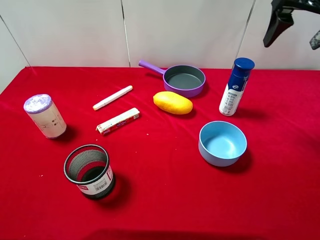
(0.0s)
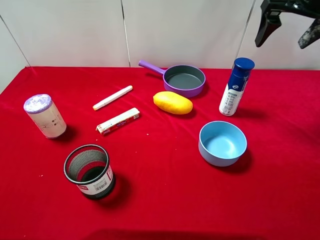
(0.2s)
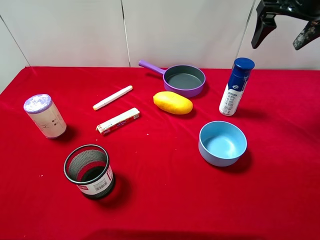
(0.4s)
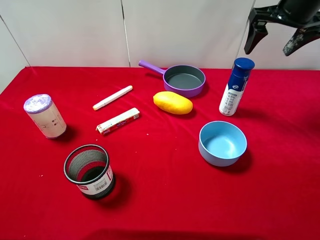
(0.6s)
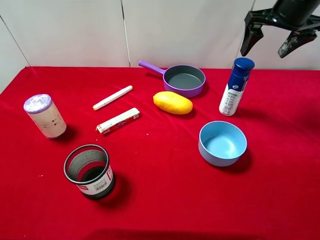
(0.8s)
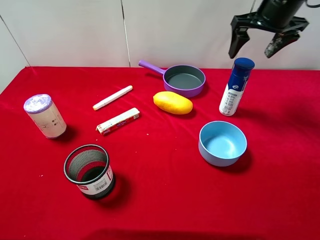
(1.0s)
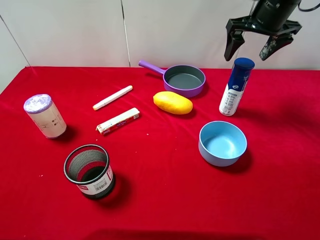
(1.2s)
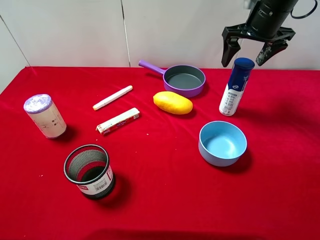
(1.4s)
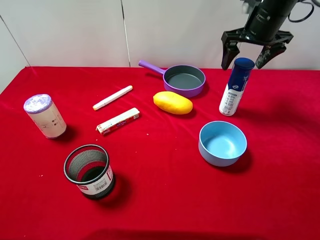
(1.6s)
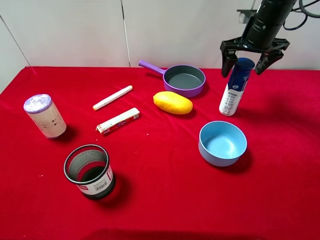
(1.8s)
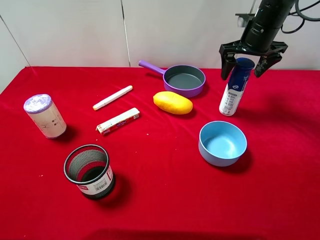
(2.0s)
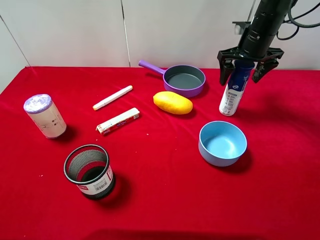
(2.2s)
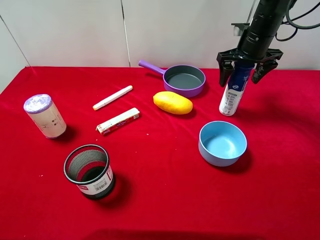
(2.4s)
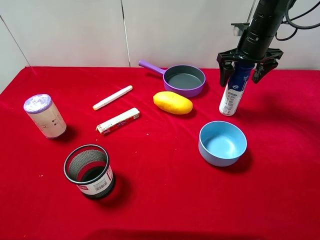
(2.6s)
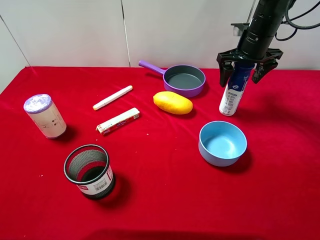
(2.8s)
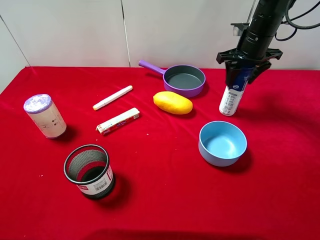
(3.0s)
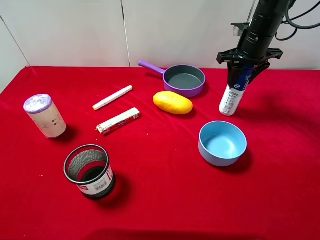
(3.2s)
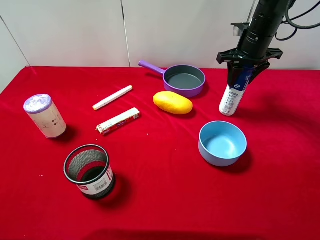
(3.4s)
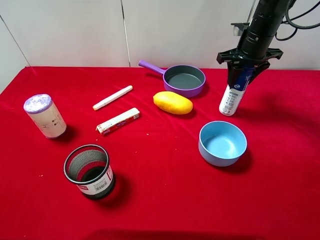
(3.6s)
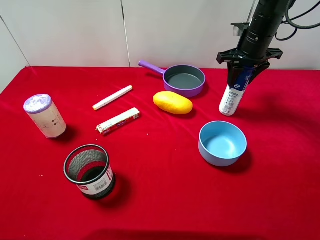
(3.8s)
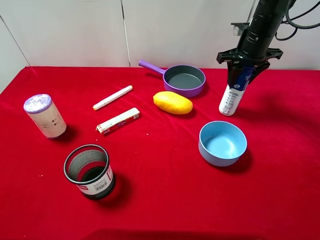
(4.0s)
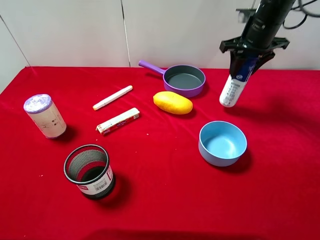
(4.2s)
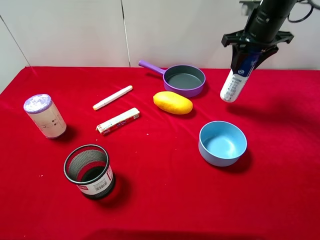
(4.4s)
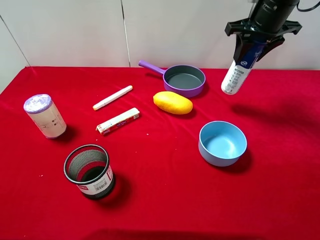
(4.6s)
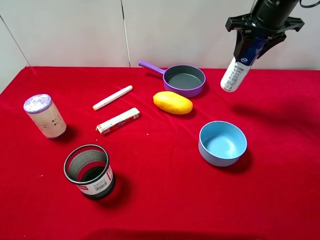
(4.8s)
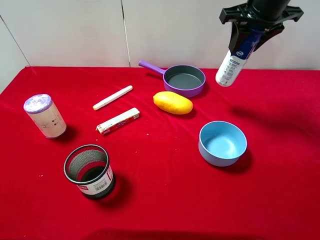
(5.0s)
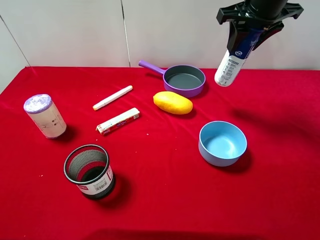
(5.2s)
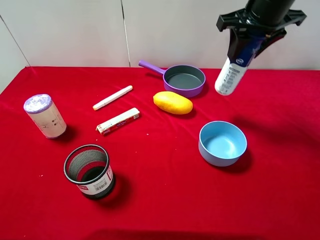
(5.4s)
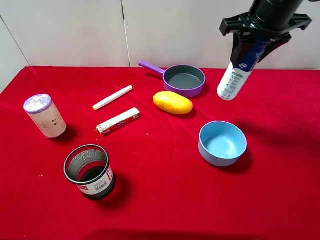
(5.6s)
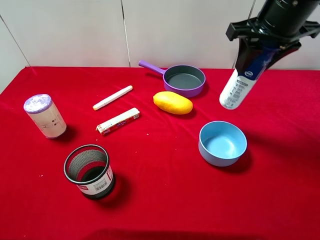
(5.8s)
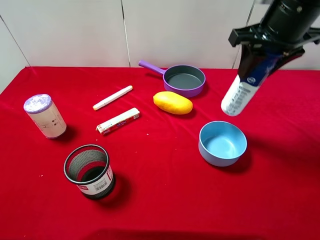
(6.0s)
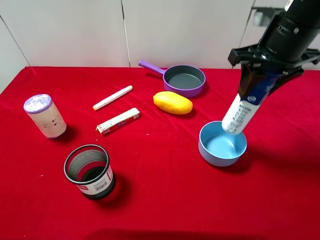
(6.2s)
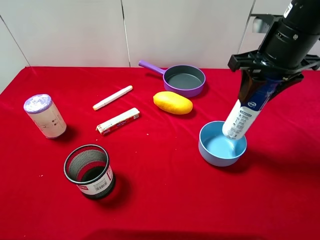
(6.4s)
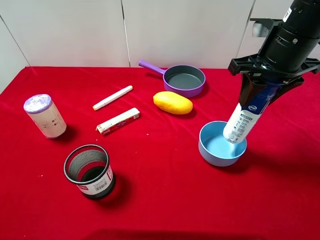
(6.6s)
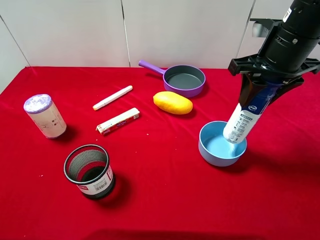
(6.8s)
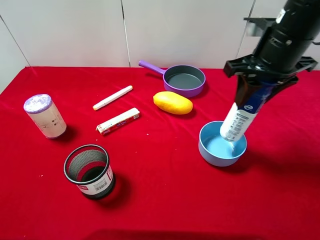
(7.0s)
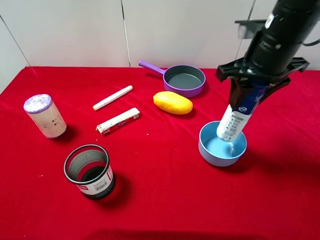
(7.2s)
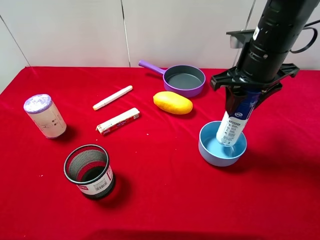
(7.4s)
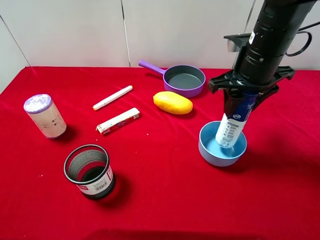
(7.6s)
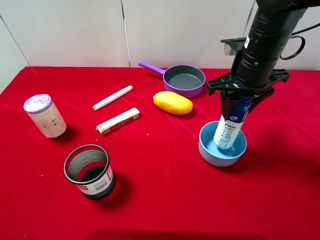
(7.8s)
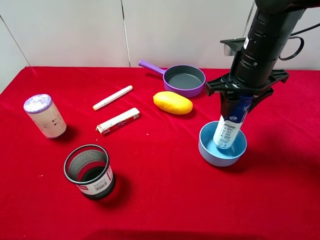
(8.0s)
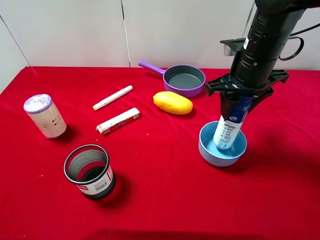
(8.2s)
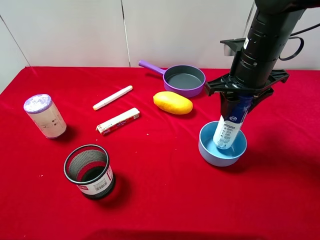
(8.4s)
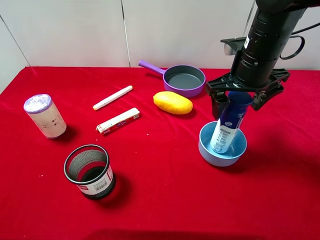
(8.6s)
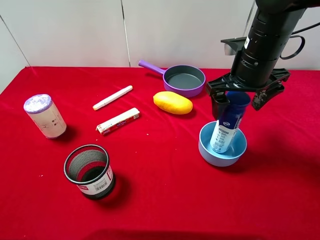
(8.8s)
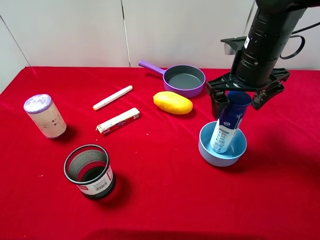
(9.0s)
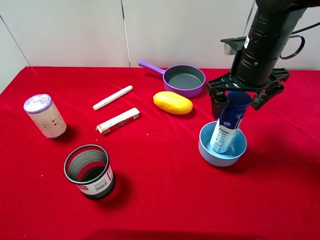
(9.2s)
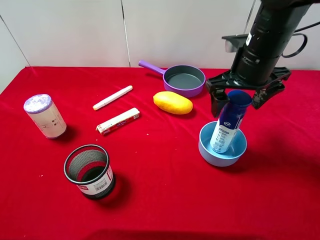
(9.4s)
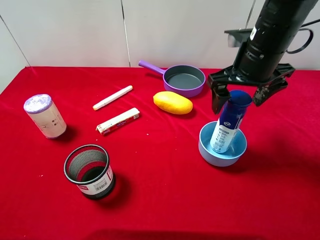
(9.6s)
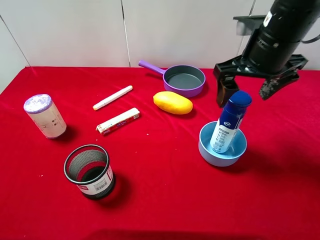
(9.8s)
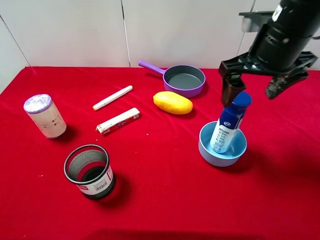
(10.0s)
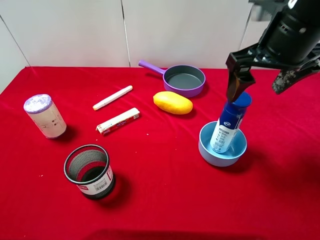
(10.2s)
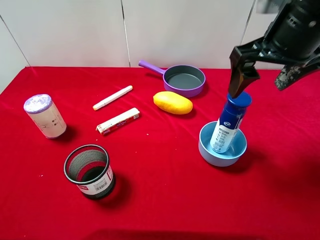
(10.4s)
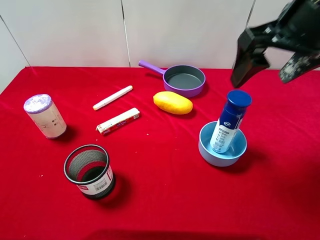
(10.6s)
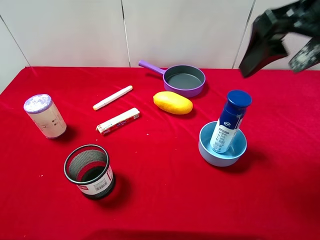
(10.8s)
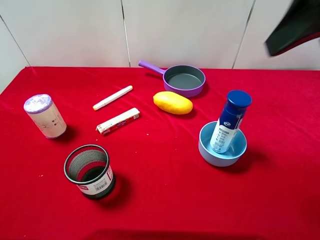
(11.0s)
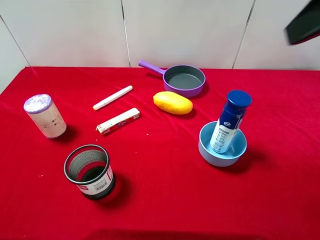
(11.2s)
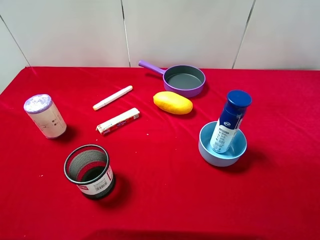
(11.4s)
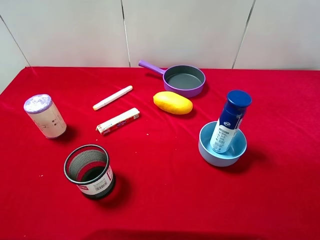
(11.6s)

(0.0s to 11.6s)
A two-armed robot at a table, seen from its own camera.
Task of the whole recording: pick up an item with a gripper and place it in a random container on the desktop.
0.0s - 1.4s: The right gripper shifts about 10 cm downward and forward.
1.4s - 2.8s: The right gripper is displaced downward by some 5 cm.
2.8s - 4.4s: The right gripper heads upward, covering approximately 5 cm, and closes up.
4.4s - 5.8s: The right gripper shifts about 10 cm backward and upward.
5.8s - 7.2s: The right gripper shifts by approximately 5 cm.
7.2s - 8.8s: The right gripper opens up.
8.8s - 10.2s: The right gripper is displaced upward by some 5 cm.
10.2s - 11.6s: The right gripper travels backward, upward and to the right by approximately 20 cm.

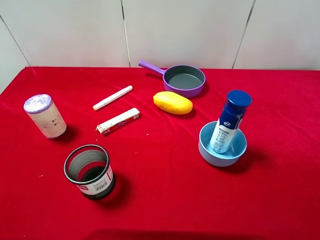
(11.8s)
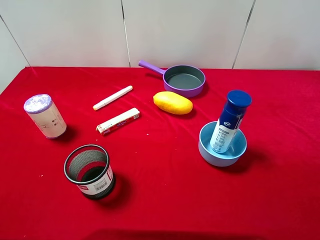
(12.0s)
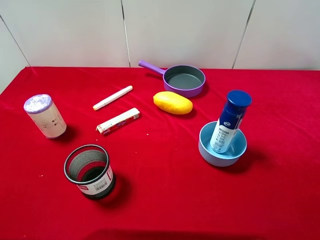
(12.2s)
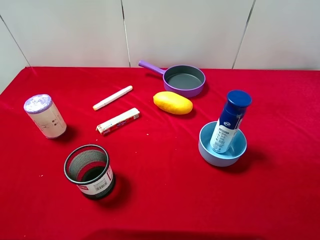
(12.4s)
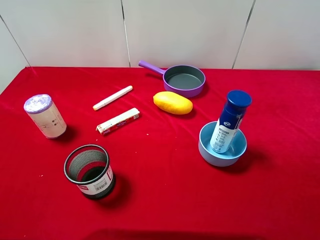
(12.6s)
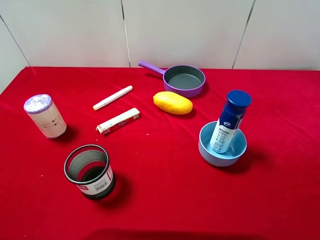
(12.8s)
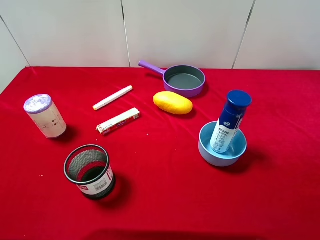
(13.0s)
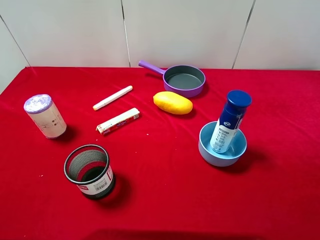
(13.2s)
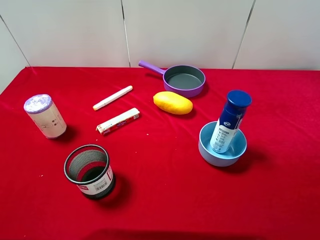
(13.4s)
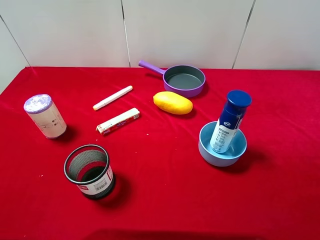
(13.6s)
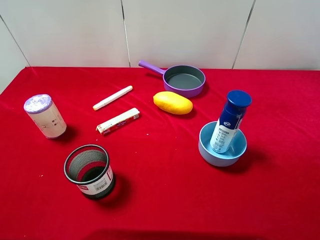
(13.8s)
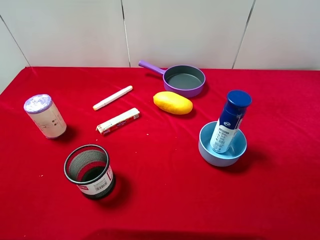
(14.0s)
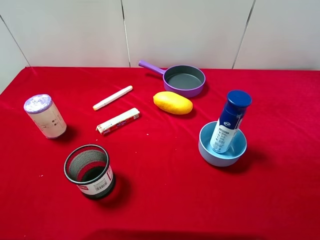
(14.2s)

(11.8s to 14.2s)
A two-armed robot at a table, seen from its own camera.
Task of the whole recording: pick up an item with a gripper and place it in a random container on the desktop.
13.0s - 14.2s: The two grippers keep their place.
